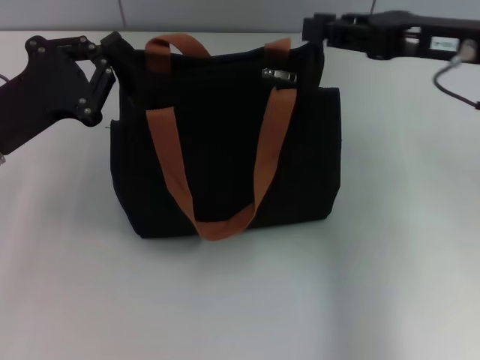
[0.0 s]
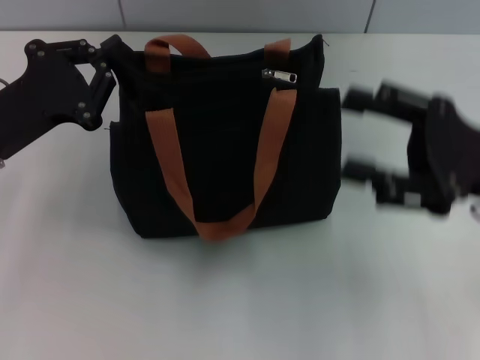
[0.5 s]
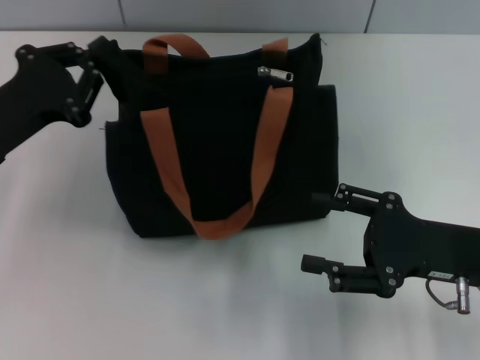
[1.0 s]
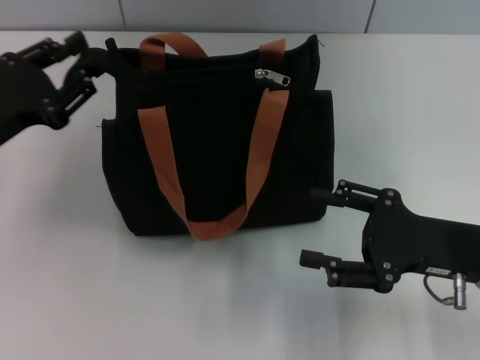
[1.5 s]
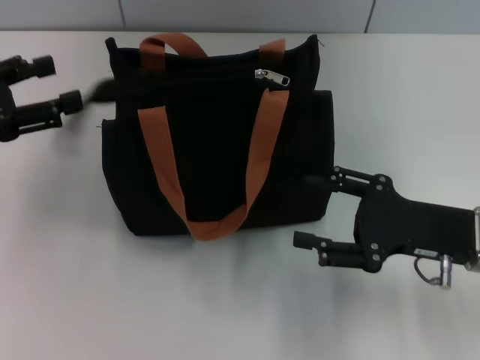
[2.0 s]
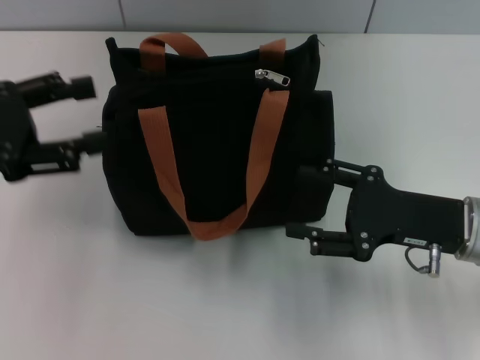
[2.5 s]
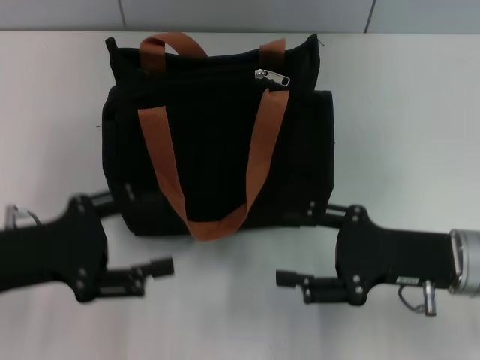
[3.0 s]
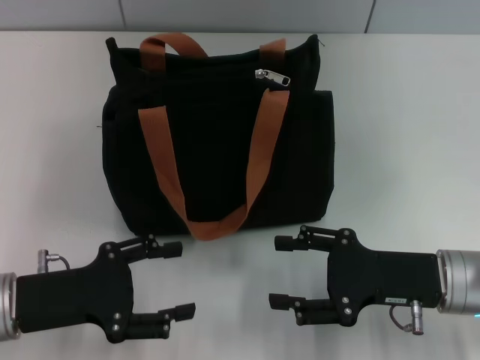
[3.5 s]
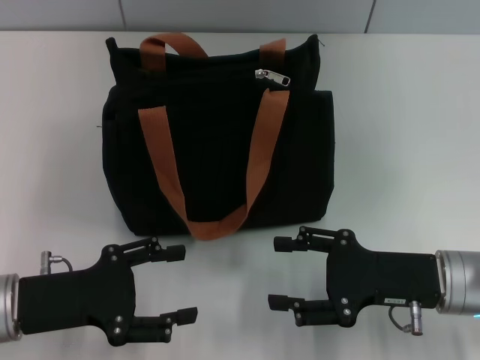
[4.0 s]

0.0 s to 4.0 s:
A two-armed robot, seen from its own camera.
Step, 0.0 to 1.5 s: Grab the zipper with your left hand.
0.0 to 2.0 s: The right gripper moves downward and backward, about 15 cm, and opens its fingers. The left gripper moves to the left, approximately 5 cm, and opens up.
2.0 to 4.0 s: The left gripper shifts approximately 15 cm downward, backward and to the right.
